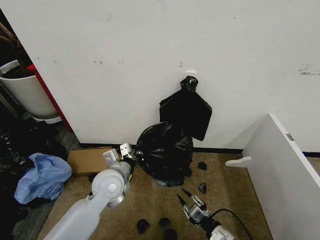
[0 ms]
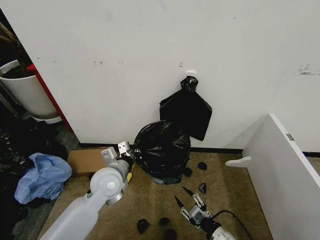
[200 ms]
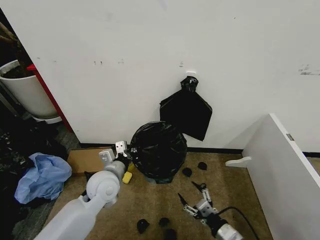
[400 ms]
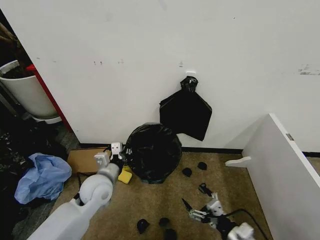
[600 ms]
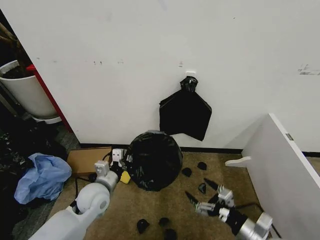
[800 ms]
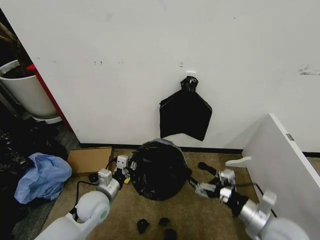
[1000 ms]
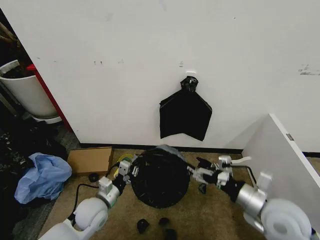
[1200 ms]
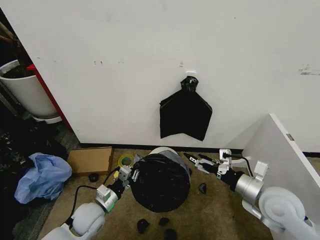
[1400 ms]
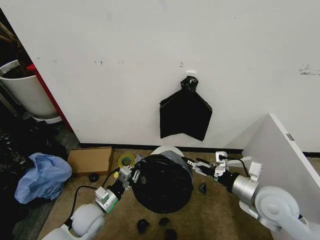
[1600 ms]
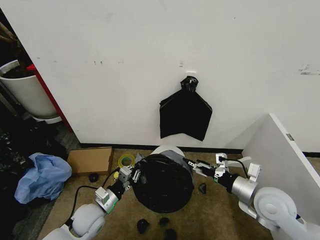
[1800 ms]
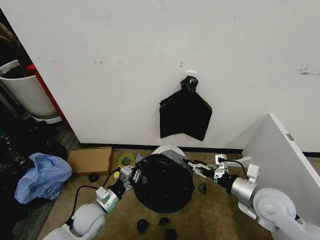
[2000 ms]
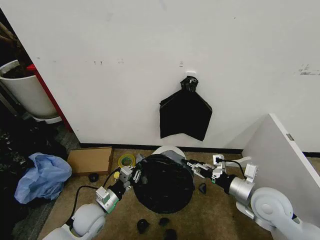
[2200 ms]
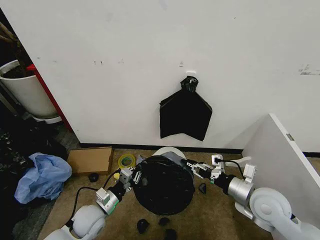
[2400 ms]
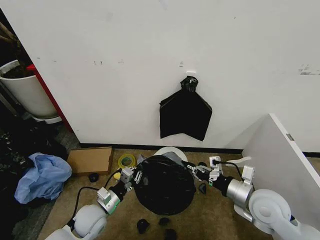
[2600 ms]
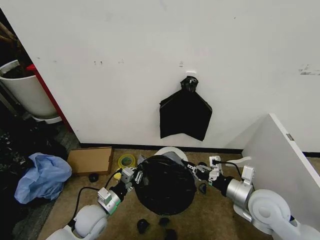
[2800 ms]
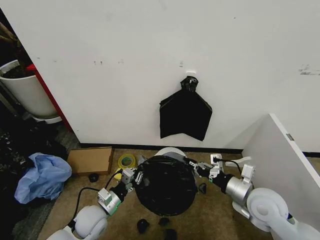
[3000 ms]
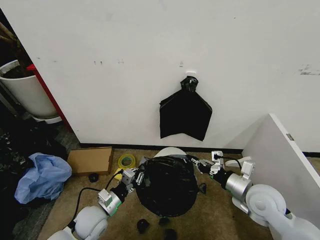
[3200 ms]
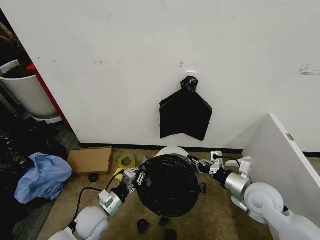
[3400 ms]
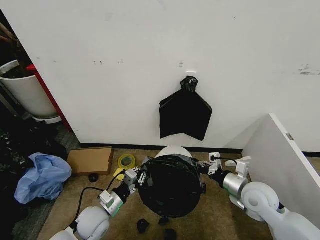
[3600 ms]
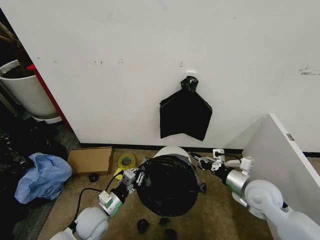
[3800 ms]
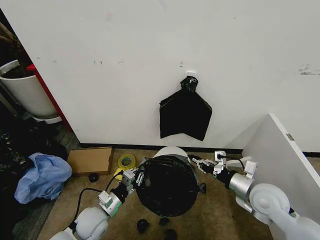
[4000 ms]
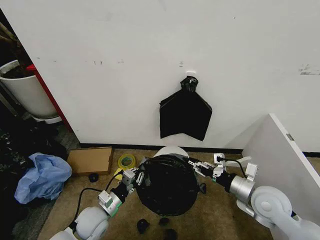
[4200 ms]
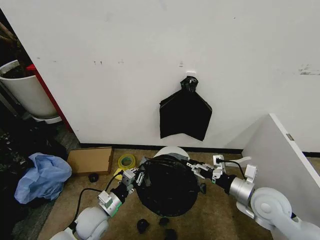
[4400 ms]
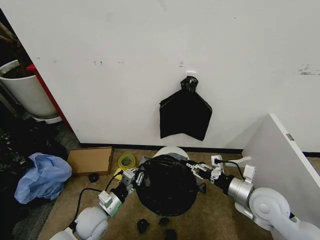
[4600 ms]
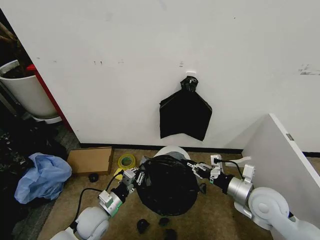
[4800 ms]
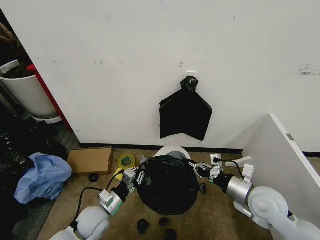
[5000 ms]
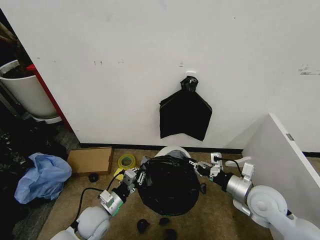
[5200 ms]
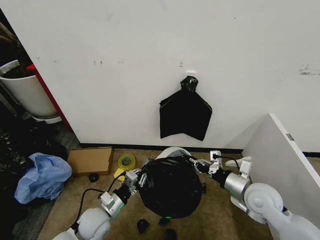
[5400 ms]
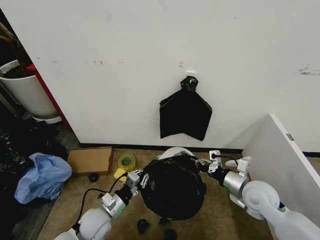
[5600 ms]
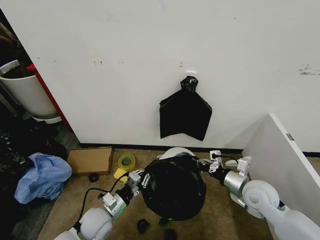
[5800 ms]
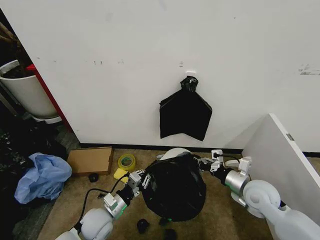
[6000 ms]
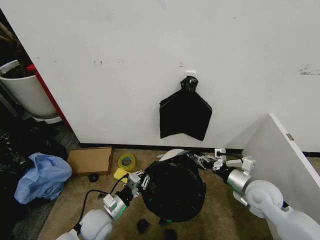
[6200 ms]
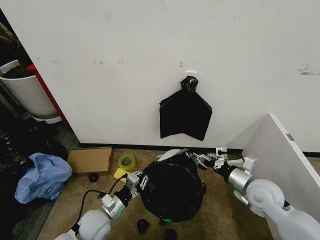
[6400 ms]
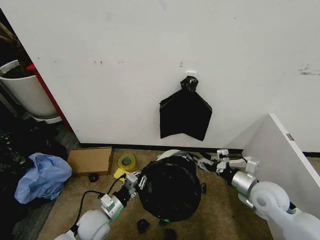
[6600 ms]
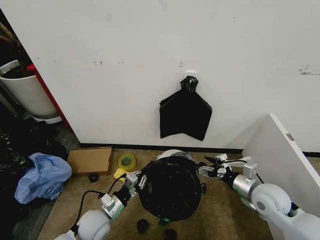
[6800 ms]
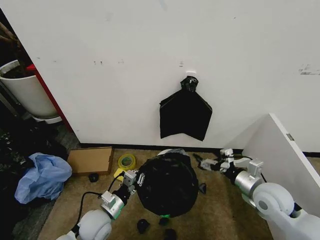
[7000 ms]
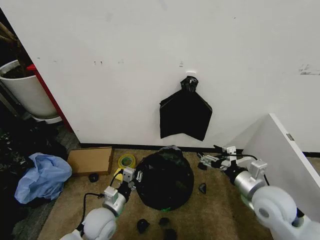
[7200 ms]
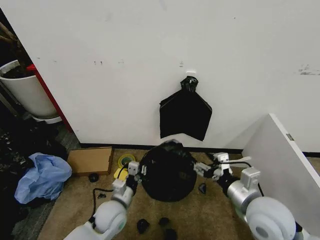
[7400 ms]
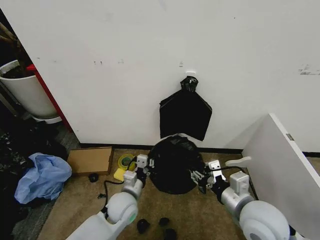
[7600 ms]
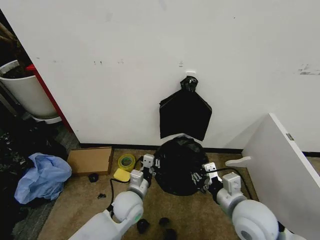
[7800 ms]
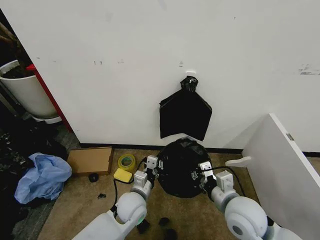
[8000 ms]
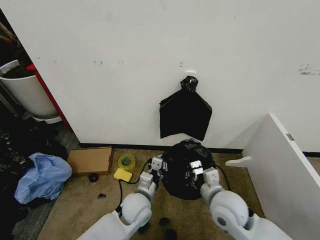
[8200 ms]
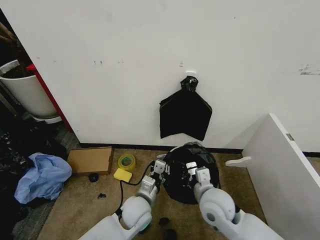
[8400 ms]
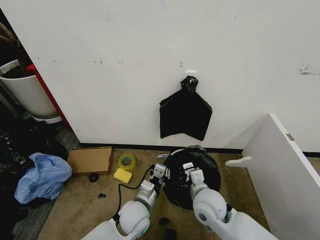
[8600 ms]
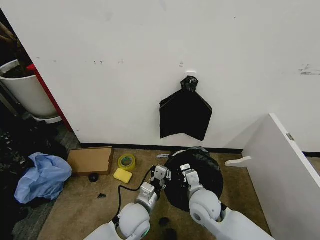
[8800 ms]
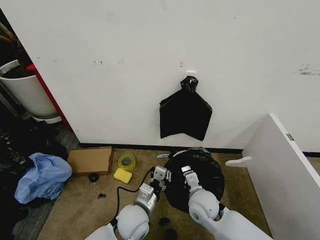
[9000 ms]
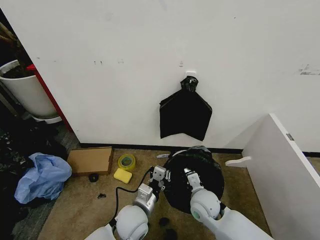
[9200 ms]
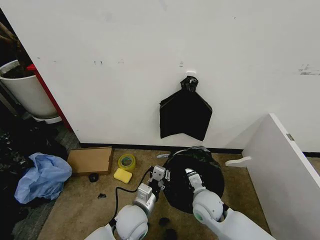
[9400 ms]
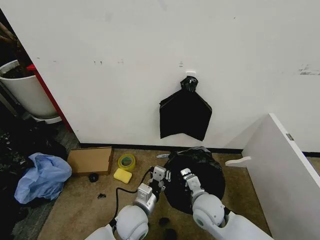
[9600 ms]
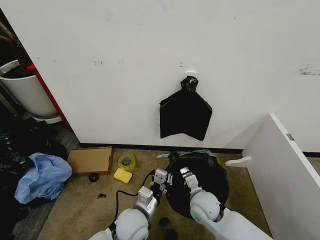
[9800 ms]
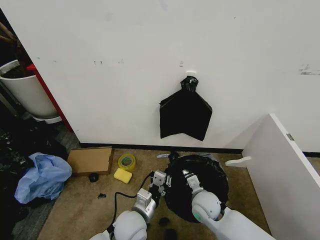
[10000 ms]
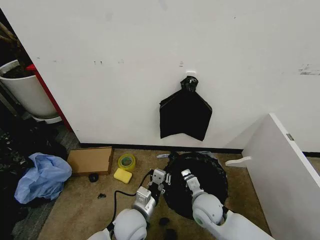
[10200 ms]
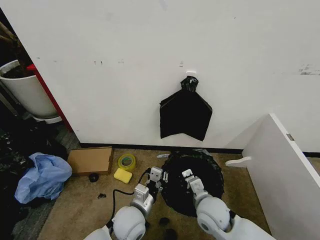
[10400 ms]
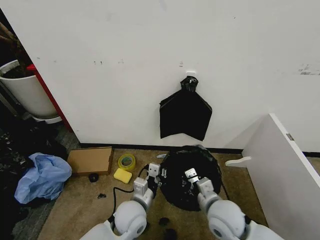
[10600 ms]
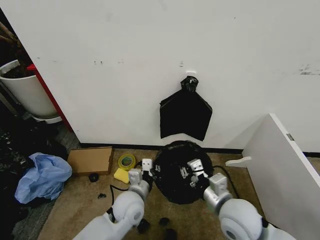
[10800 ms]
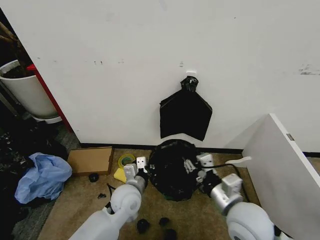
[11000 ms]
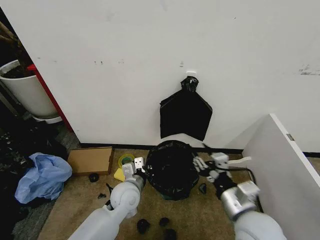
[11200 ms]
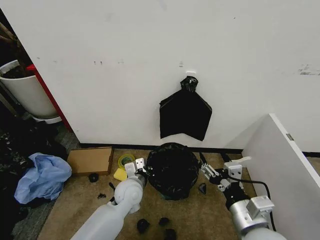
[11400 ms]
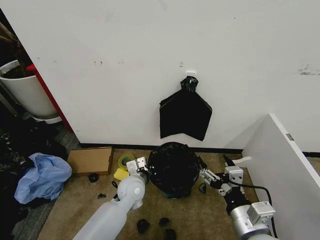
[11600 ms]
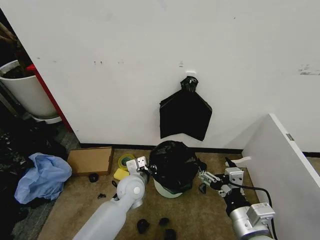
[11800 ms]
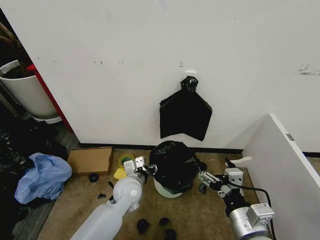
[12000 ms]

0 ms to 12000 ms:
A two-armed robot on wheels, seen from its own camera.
Task of the whole recording: Place the garbage bag over the trash bin.
0 ms to 1600 ms: The left gripper moves downward, to the left and backward, roughly 15 cm; the right gripper is displaced upward and forward by approximately 20 cm, and opens its fingers.
1600 ms to 3000 ms: The right gripper closes up.
3000 ms to 4400 ms: The right gripper opens its fingers.
4400 ms to 6000 ms: The right gripper closes up.
6000 ms to 7600 ms: The right gripper shifts approximately 15 cm backward, to the left and upward, and opens up; the left gripper is displaced to the right by some 10 cm.
7600 ms to 9000 ms: The right gripper heads downward, to the left and forward, covering about 20 cm, and closes its fingers, while the left gripper shifts by approximately 5 cm.
9000 ms to 10400 ms: The grippers make only small movements.
10400 ms to 12000 ms: The left gripper shifts some 10 cm forward, and opens its fingers. Meanwhile the right gripper heads backward, upward and to the right, covering some 15 cm, and opens its fingers.

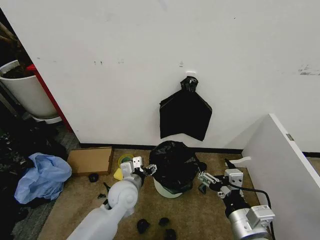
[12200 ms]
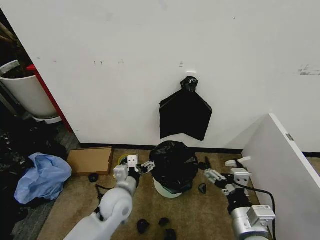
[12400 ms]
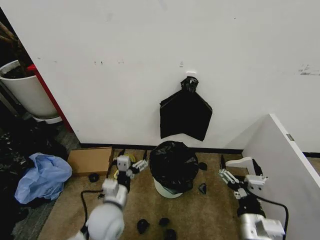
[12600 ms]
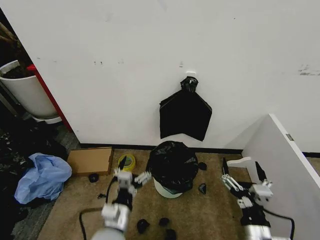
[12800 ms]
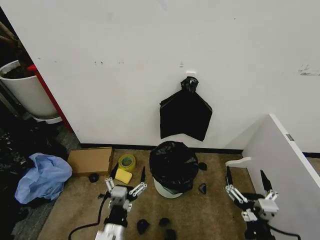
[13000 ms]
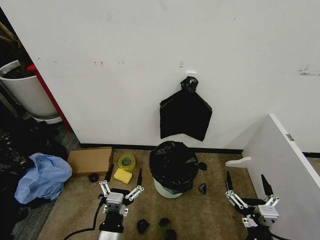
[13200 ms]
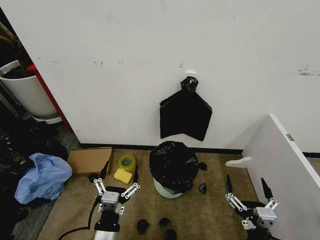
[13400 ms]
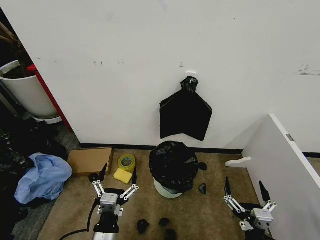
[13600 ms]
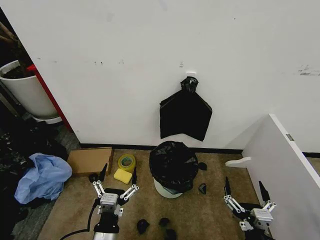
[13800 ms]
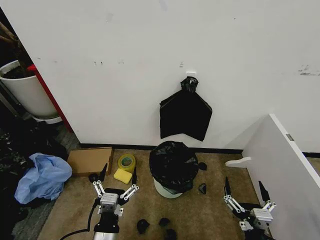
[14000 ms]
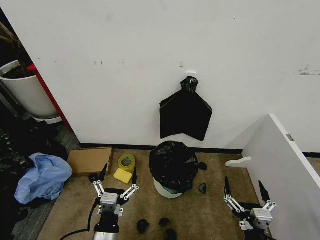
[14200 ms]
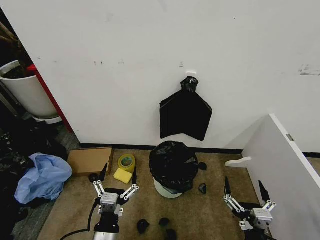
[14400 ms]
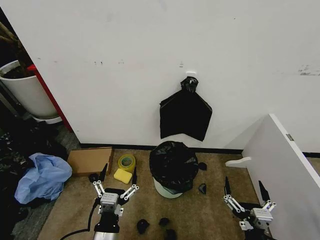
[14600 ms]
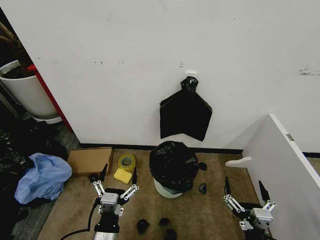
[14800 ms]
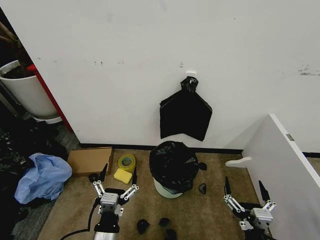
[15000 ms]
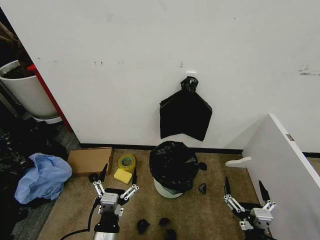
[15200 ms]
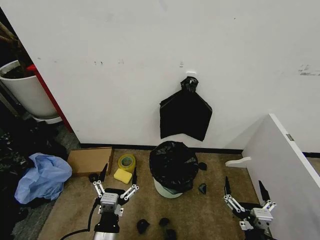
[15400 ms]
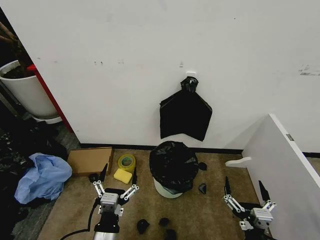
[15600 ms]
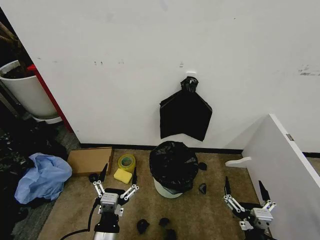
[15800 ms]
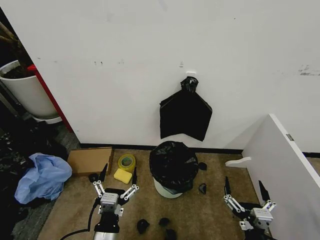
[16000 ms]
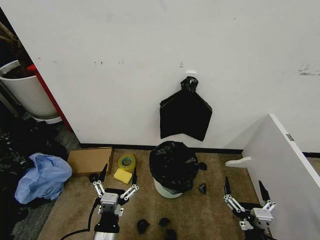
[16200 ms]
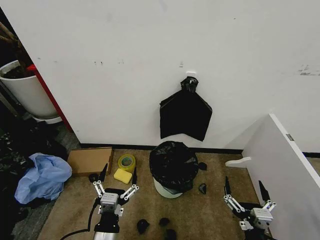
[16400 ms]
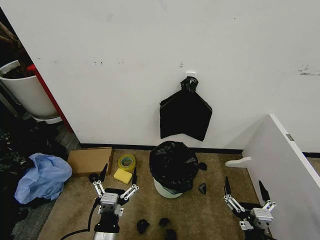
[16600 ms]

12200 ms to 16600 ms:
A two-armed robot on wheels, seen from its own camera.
Task of the whole recording: Place the garbage bag over the trash bin.
12200 ms to 13600 ms: The left gripper travels backward by some 20 cm. Meanwhile the right gripper shifts some 10 cm downward and backward.
13600 ms to 16600 ms: The two grippers keep their place.

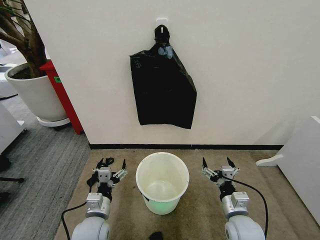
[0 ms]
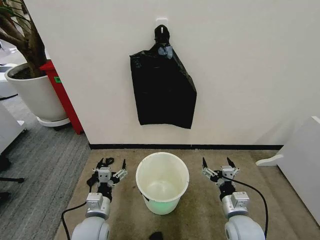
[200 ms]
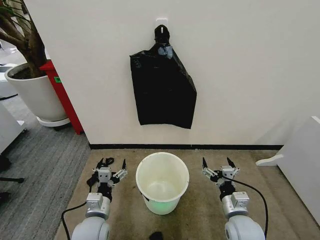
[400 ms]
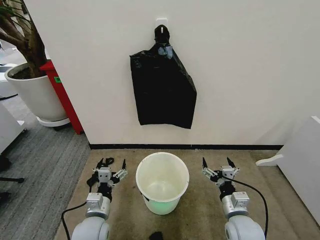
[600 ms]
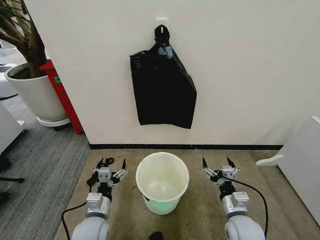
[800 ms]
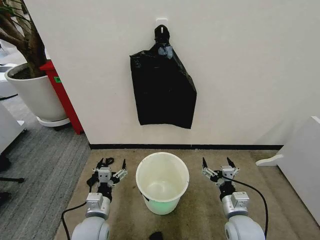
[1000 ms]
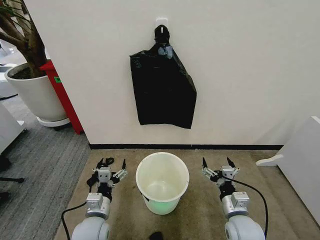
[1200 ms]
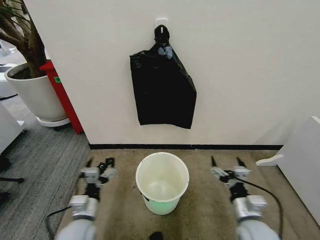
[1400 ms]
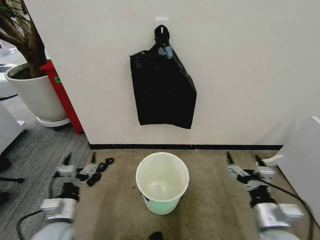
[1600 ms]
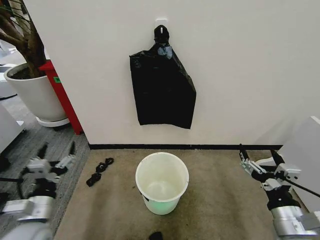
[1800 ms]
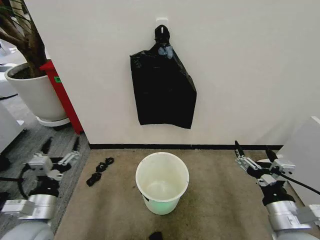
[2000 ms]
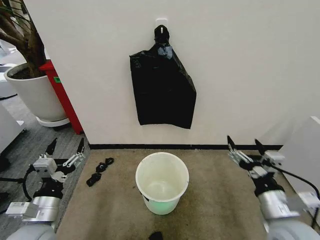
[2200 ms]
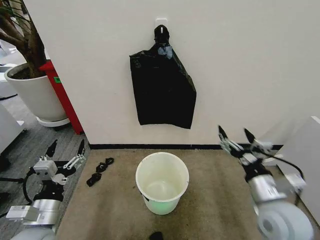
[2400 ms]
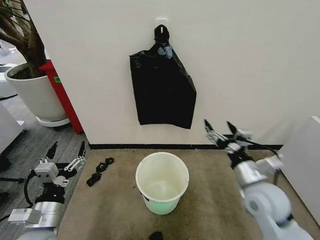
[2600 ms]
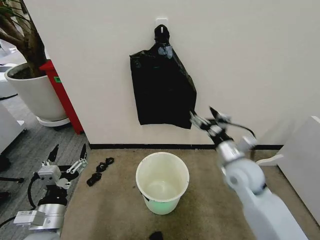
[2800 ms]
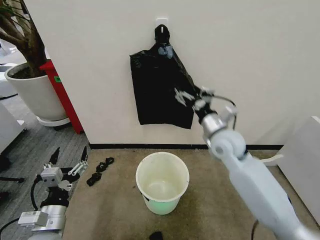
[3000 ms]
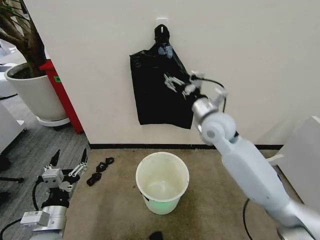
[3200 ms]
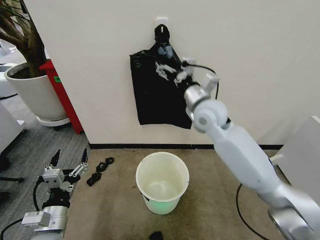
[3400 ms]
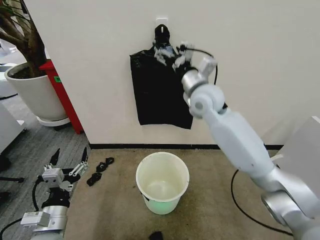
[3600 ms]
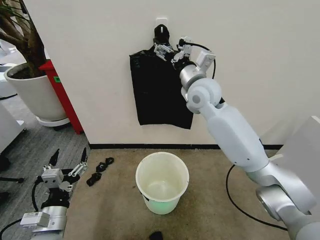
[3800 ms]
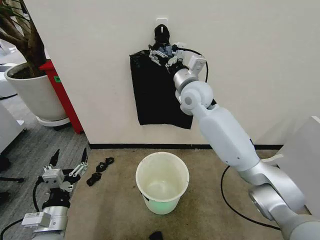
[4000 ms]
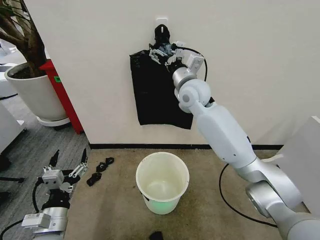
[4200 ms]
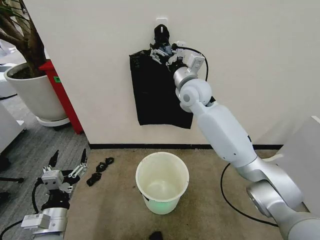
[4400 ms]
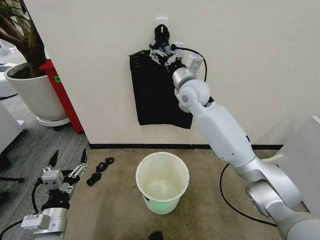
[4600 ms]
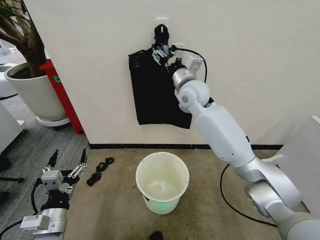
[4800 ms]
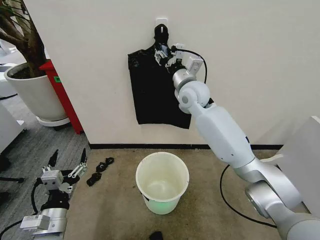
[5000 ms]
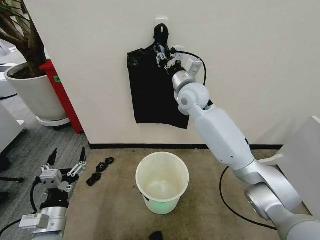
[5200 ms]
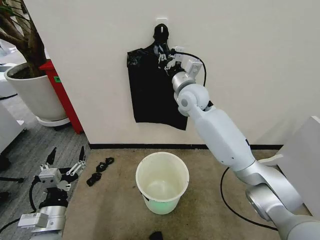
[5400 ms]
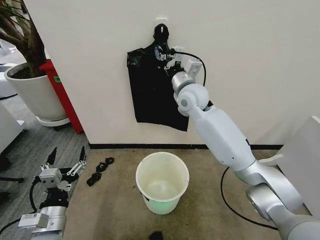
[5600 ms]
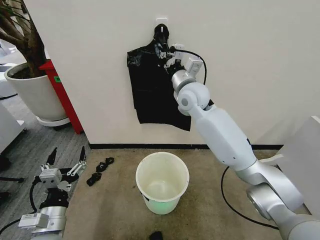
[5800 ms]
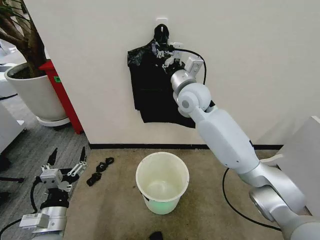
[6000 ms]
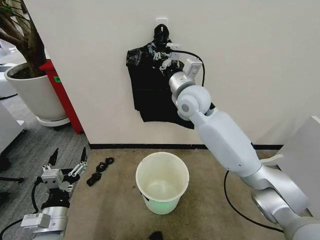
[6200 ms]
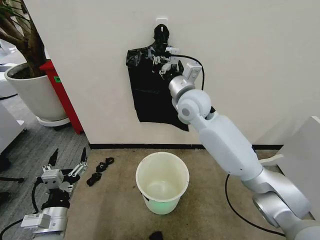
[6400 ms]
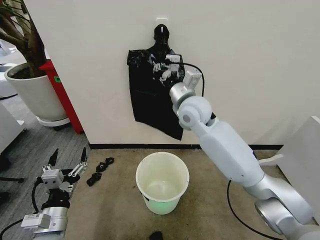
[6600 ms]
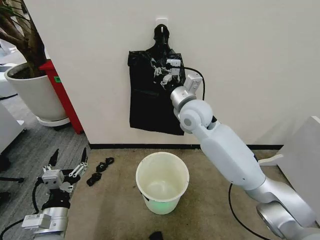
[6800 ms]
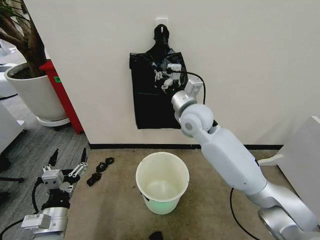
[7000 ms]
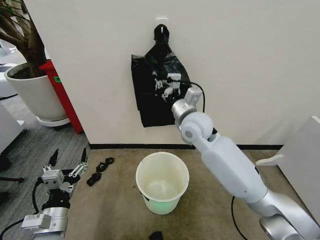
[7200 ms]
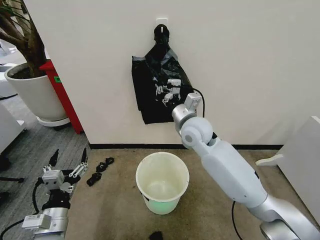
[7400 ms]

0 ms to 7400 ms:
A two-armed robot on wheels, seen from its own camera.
Task of the whole recording: Place the garbage bag over the trash bin.
1400 ms to 3000 ms: The left gripper moves upward and to the left, some 10 cm, while the right gripper is displaced forward and upward by some 25 cm.
3000 ms to 4400 ms: The right gripper heads forward, upward and to the left, covering some 20 cm.
4400 ms to 6000 ms: The right gripper closes up.
6000 ms to 7400 ms: The right gripper shifts approximately 10 cm downward and backward.
